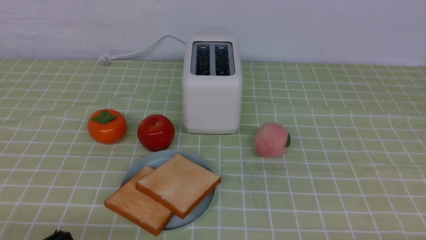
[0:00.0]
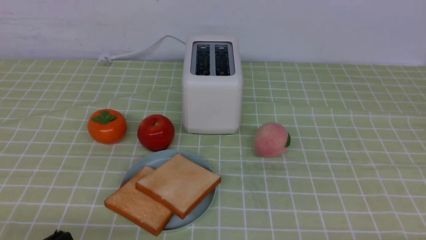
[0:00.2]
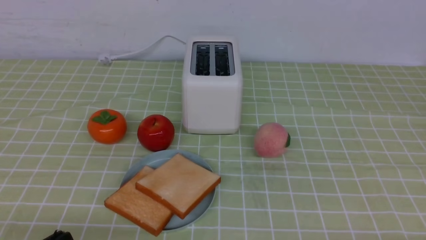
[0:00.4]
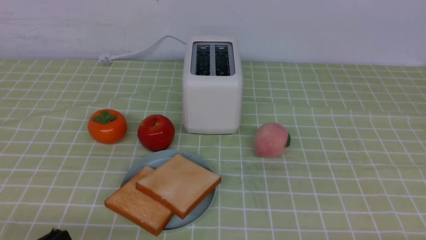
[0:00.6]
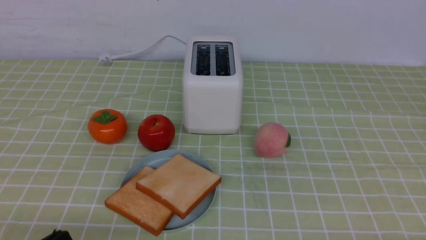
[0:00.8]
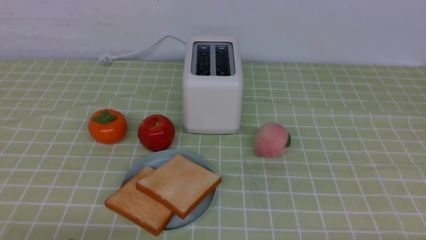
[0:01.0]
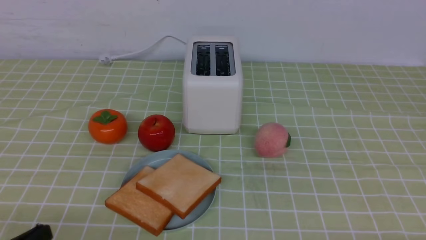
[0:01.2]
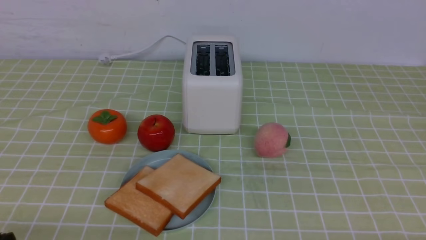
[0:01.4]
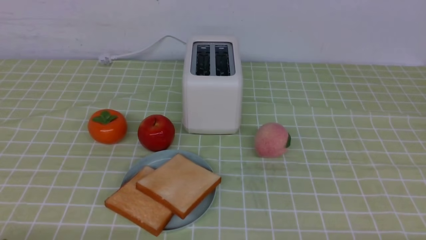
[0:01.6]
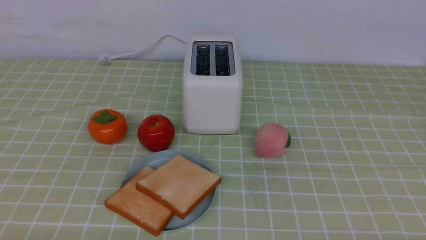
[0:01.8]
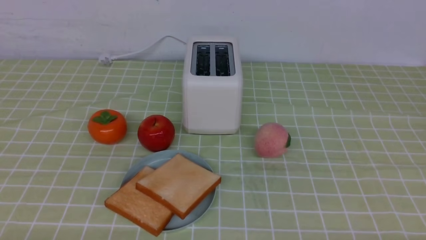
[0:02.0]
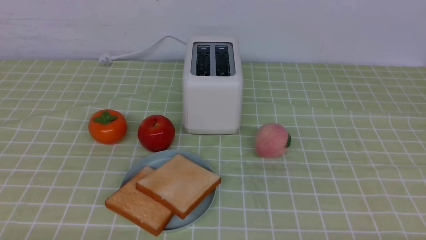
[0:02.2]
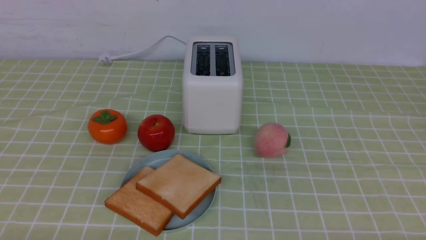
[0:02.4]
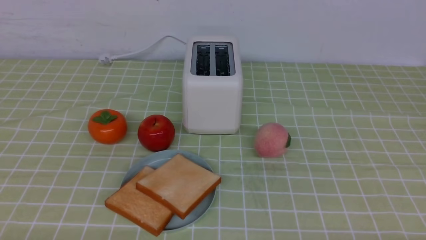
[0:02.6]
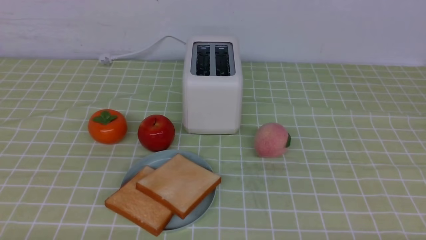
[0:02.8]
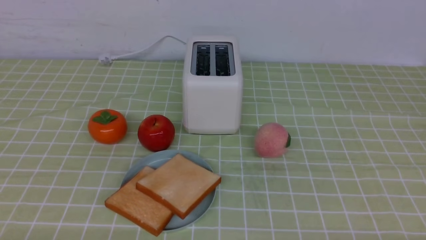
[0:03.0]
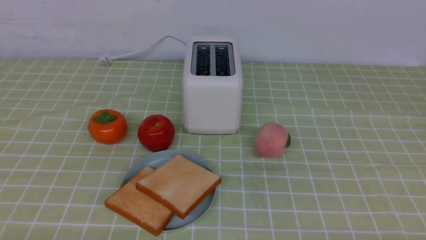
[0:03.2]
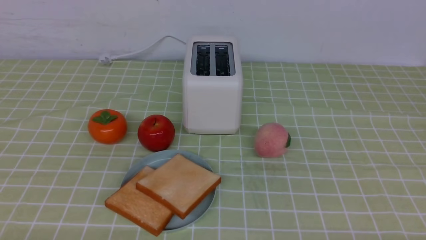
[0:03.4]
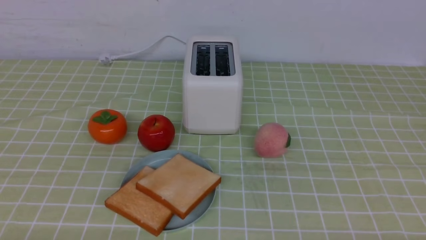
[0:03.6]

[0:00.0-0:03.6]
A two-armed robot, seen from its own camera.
Task of the whole recording: take toasted bread from bread machine on green coffee tablecloth place on plate.
0:01.8 to 0:03.6: Neither gripper changes place.

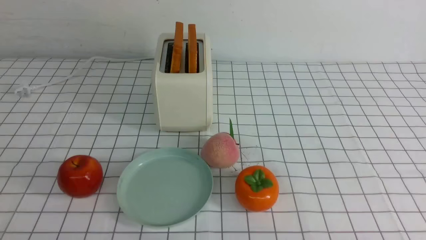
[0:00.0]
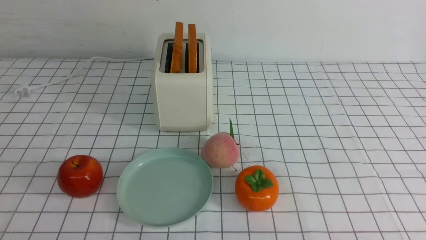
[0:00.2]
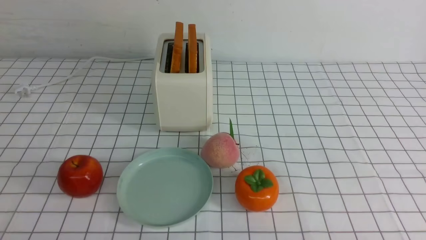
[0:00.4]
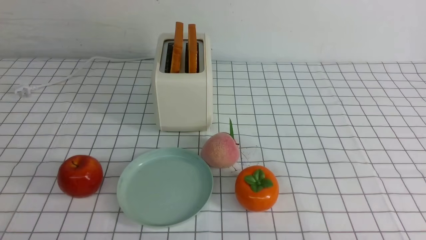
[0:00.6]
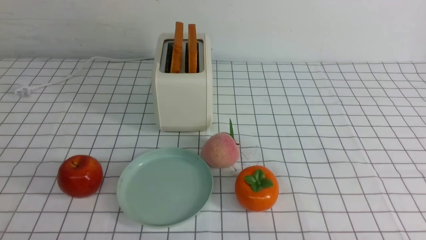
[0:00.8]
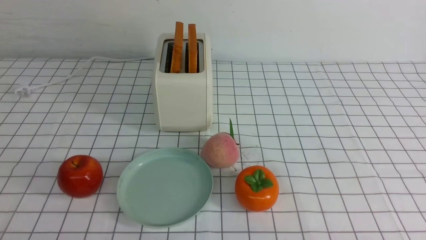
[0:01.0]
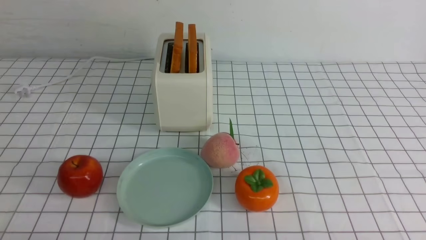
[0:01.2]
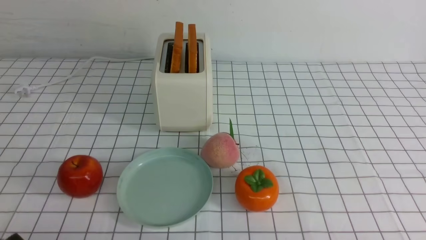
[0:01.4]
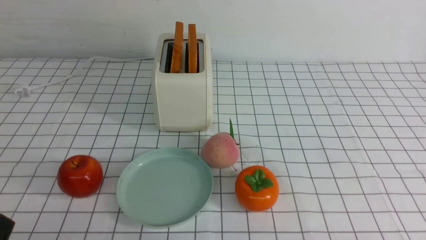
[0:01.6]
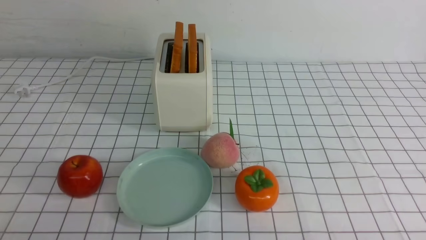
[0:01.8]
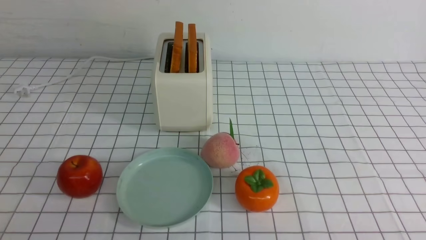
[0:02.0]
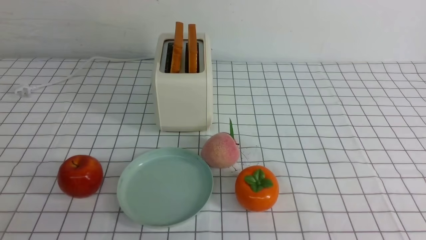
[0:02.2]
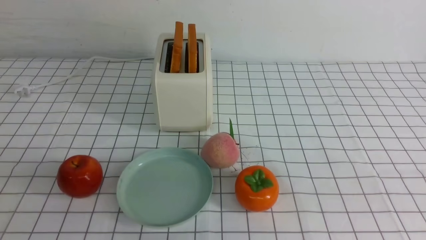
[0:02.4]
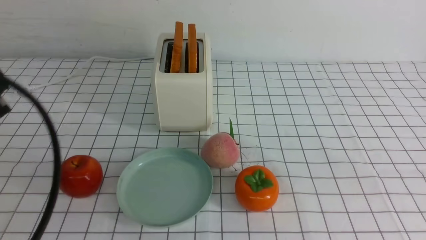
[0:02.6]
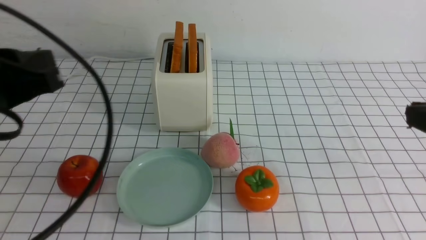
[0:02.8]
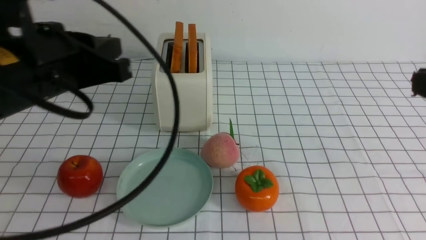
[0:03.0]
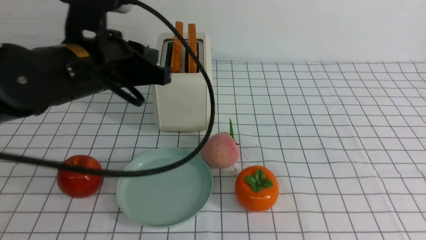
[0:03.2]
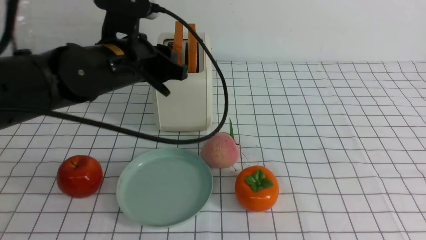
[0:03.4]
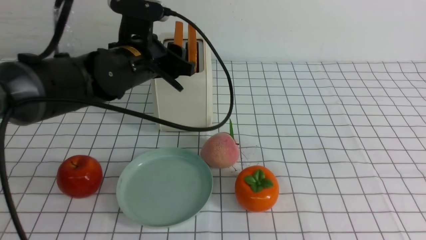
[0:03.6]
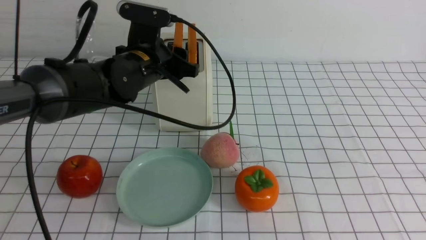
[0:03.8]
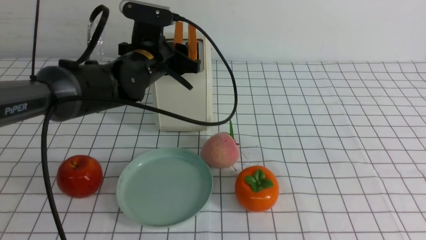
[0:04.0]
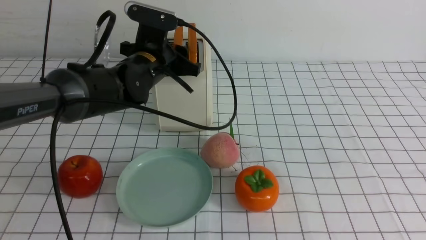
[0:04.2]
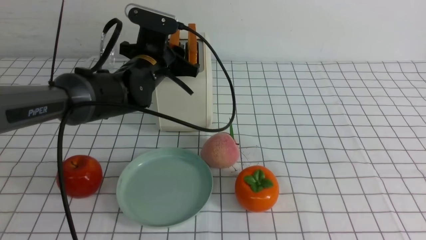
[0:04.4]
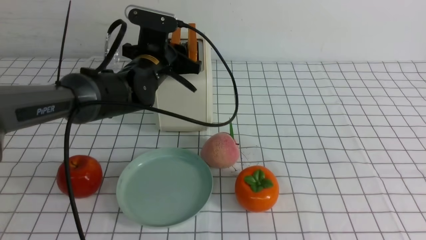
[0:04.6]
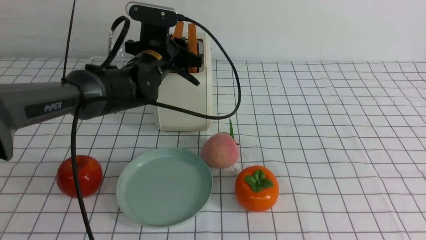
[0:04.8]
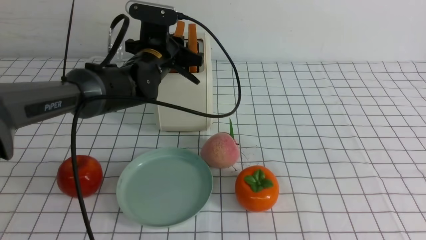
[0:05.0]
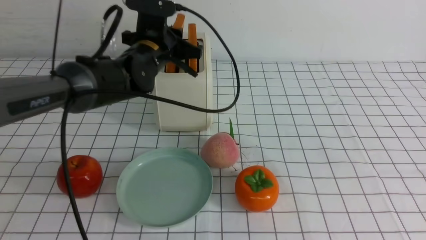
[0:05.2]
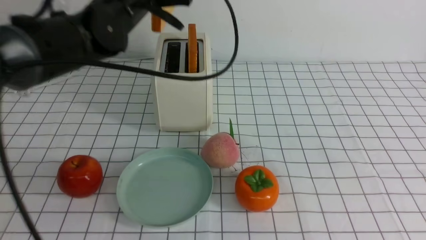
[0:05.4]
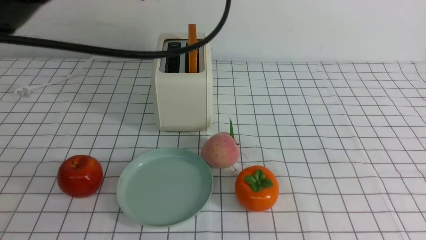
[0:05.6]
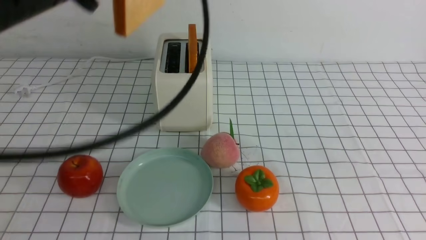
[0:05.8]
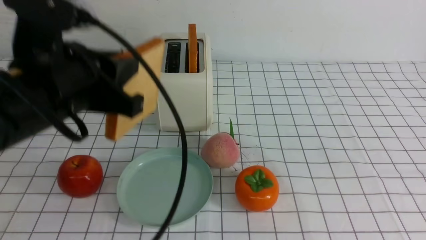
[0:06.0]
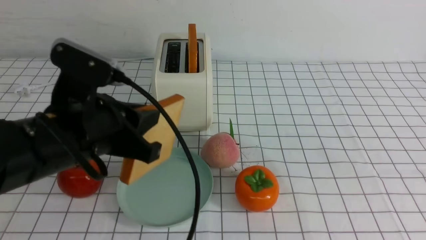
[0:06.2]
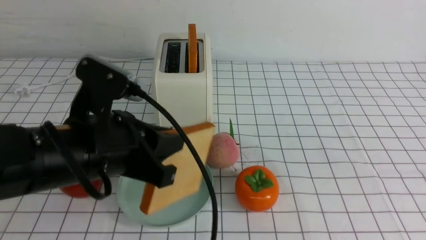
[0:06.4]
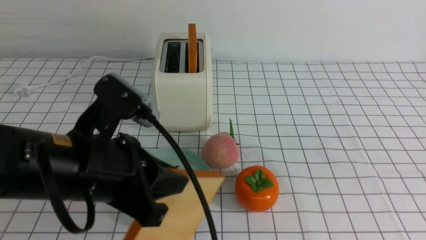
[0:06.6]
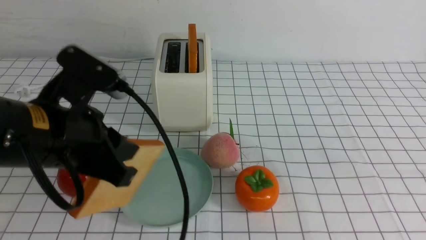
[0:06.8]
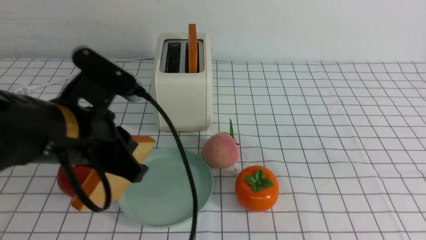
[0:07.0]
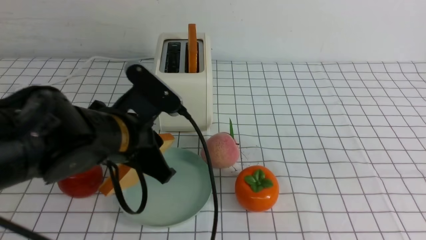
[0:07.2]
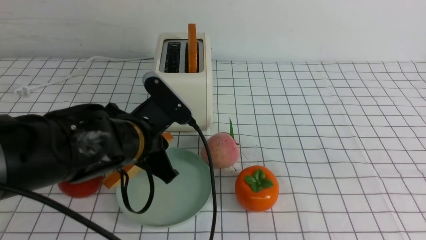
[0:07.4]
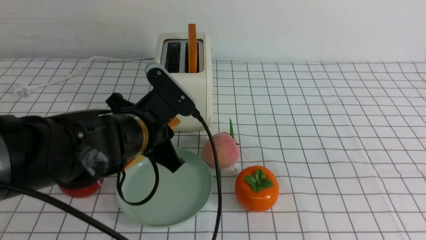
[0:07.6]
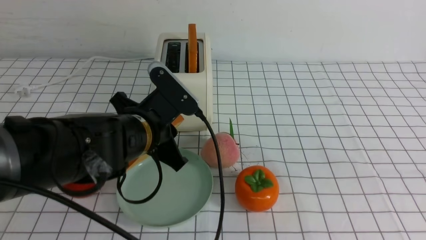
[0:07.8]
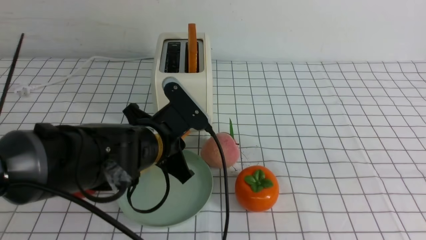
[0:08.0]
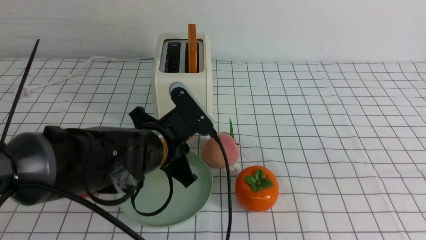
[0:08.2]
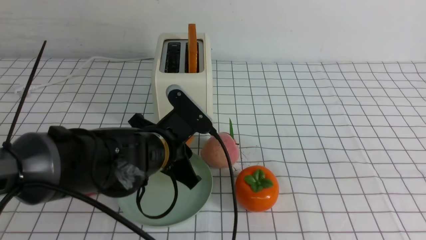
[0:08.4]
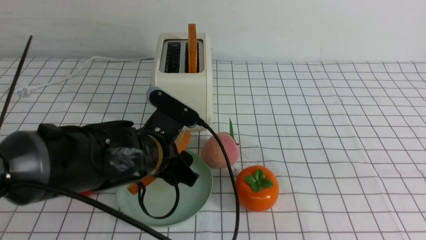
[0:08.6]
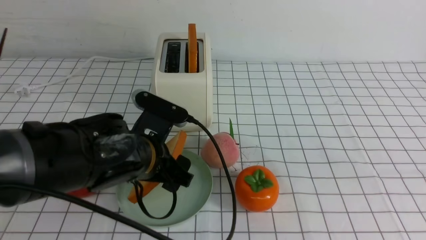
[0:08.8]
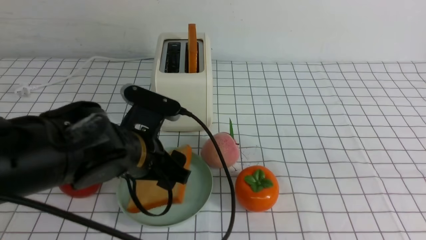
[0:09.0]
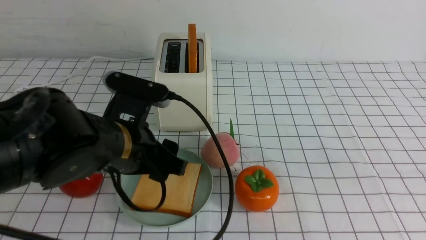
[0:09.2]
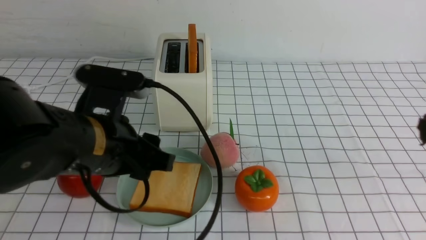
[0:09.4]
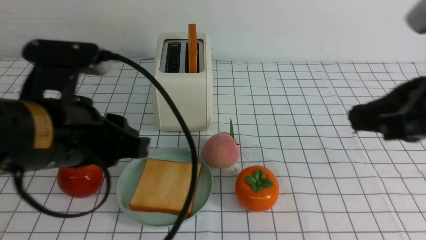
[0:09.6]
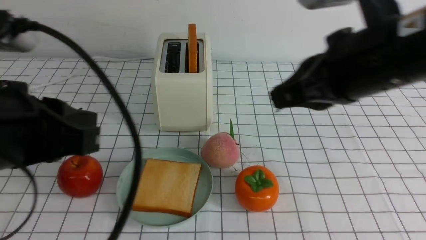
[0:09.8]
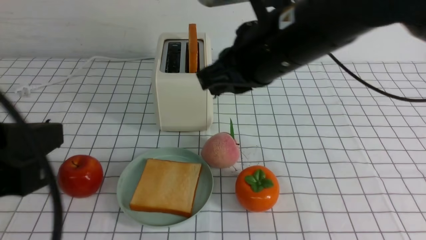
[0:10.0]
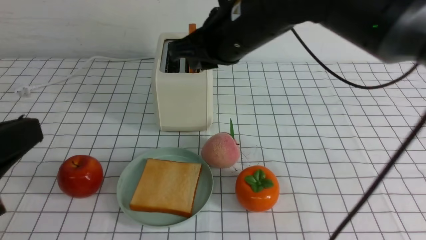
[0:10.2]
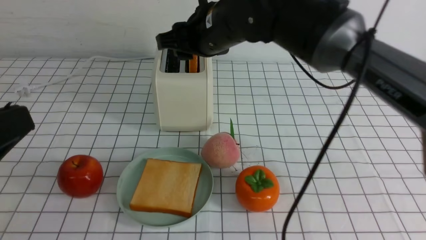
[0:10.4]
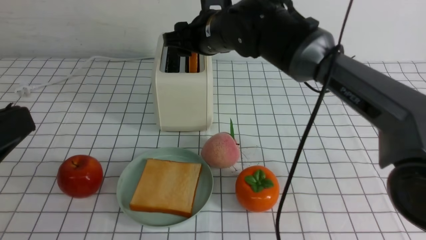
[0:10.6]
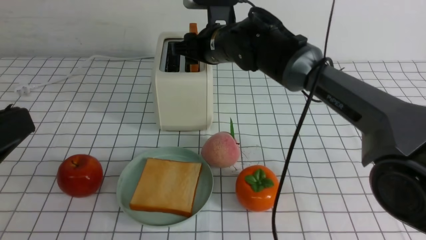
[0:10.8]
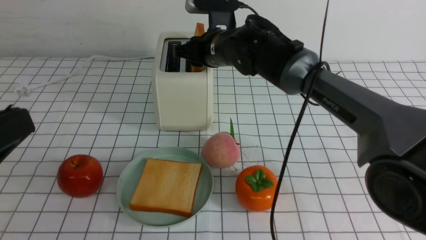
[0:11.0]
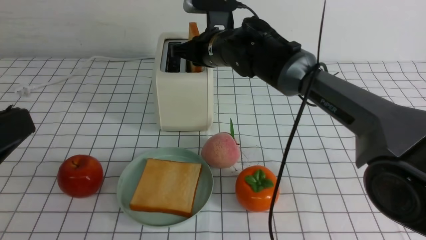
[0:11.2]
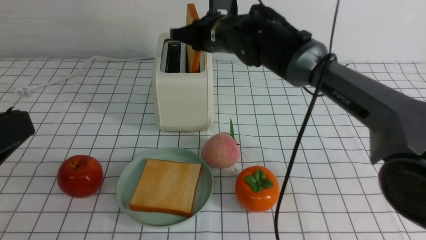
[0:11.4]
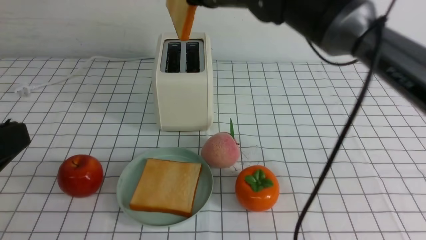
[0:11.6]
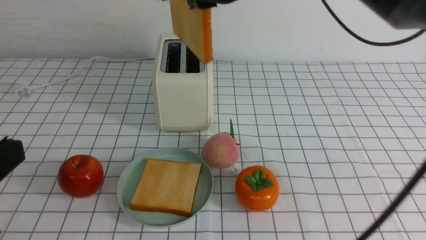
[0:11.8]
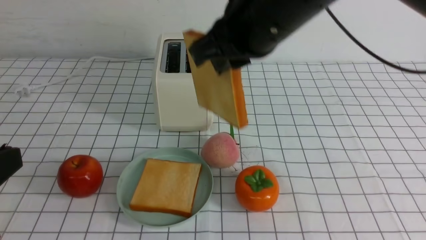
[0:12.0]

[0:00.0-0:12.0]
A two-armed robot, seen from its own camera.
Task of the whole recording: take toasted bread from bread machine on white checkered table place on plate.
Step, 0:00.0 to 0:05.2: use the left arm to take out a slice of bread.
Step, 0:05.4 to 0:09.2: use the left arm to put a slice of bread into the empty plate.
Step, 0:09.4 to 0:11.4: use the right arm to take out a slice of bread.
0:01.6 to 0:03.0: The right gripper travels upward by approximately 25 cm, and closes; the left gripper moves forward, upward and to the right, about 25 cm, and closes up.
0:03.0 to 0:04.4: The left gripper shifts about 20 cm forward and downward, and opens.
0:04.4 to 0:06.0: The left gripper heads backward and upward, covering some 20 cm.
0:06.0 to 0:07.6: The left gripper travels downward and to the right by about 10 cm.
0:07.6 to 0:09.0: The left gripper opens.
0:09.0 to 0:10.4: The right gripper shifts some 40 cm forward and to the left, and opens its fingers. The left gripper is displaced backward, to the left and upward by roughly 25 cm, and closes up.
0:10.4 to 0:12.0: The right gripper travels backward and upward by some 15 cm, and closes its fingers.

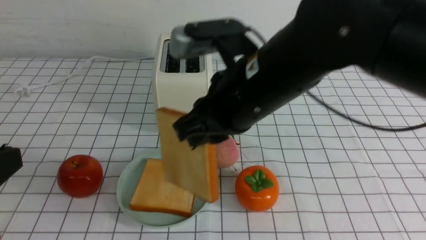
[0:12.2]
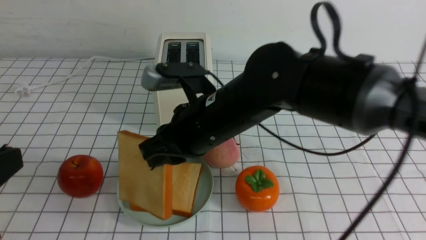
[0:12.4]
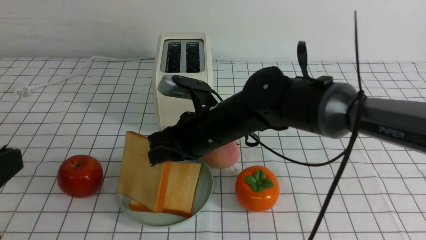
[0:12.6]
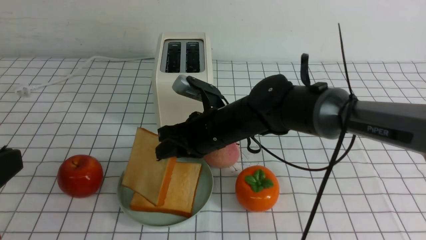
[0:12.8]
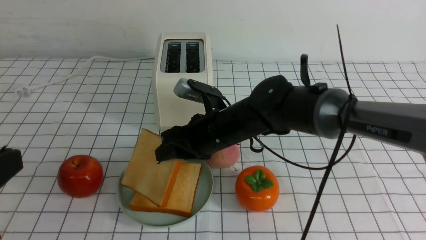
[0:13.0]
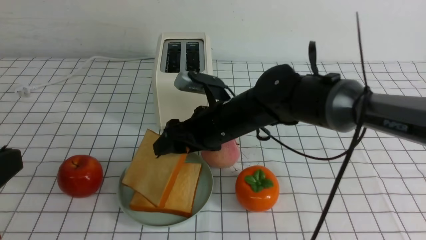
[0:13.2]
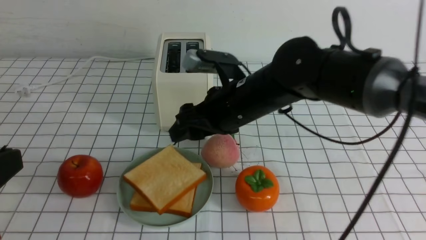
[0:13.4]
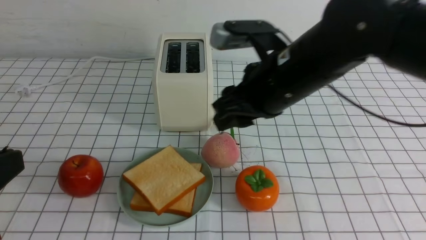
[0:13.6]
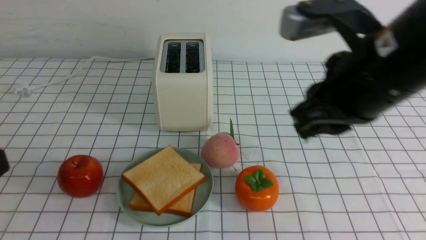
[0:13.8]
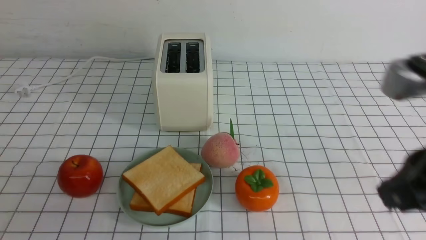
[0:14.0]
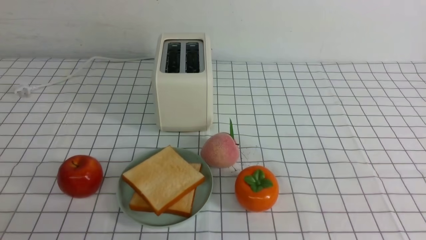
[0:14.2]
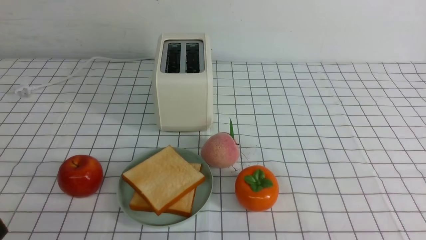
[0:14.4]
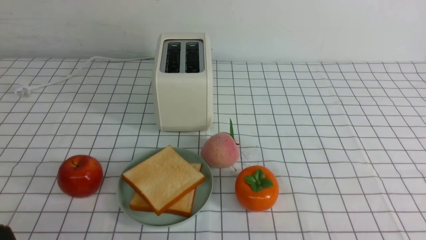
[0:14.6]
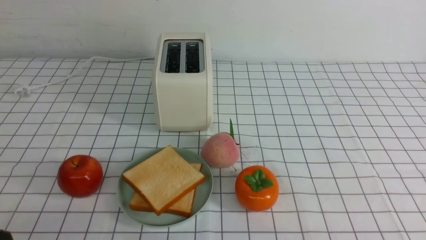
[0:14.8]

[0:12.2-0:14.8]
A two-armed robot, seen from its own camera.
Task of the whole recording: take toasted bread from bread machine on white checkered table place on plate.
Step, 0:12.2 to 0:13.4: use the right arm to put a slice of bread into the plate.
0:12.2 to 0:13.4: The right gripper opens up.
0:13.4 to 0:14.8: The right gripper travels backward and to the right by about 35 cm, and closes, while the left gripper goes approximately 10 cm downward.
